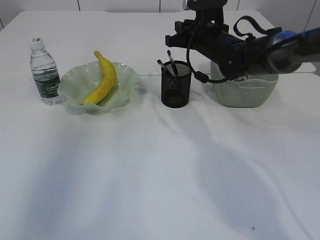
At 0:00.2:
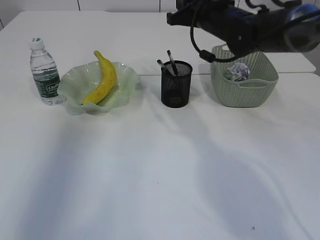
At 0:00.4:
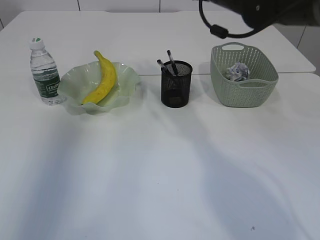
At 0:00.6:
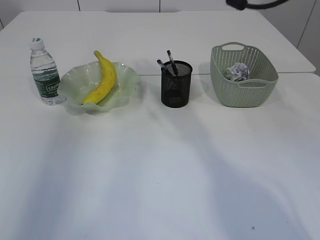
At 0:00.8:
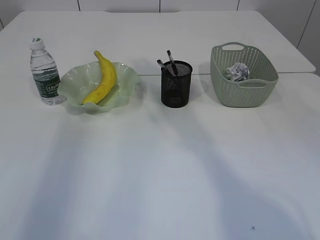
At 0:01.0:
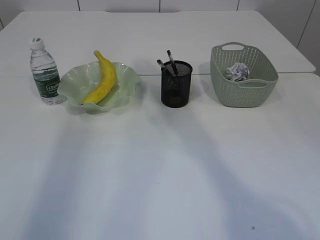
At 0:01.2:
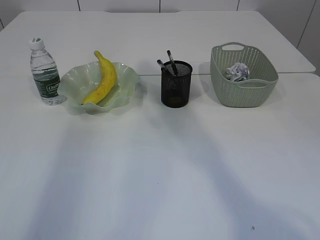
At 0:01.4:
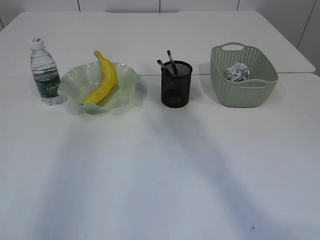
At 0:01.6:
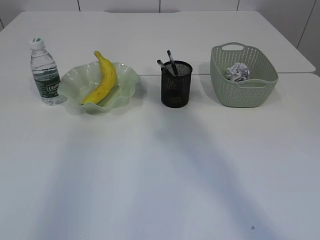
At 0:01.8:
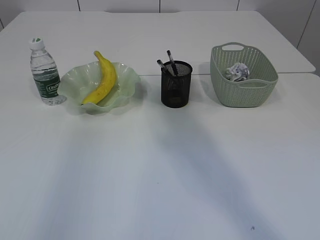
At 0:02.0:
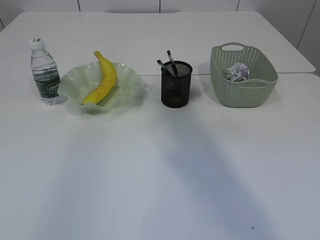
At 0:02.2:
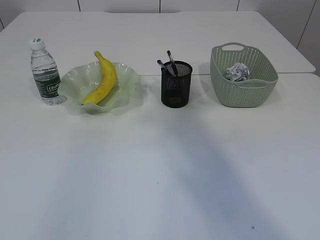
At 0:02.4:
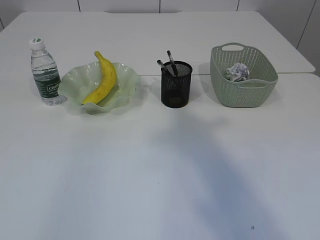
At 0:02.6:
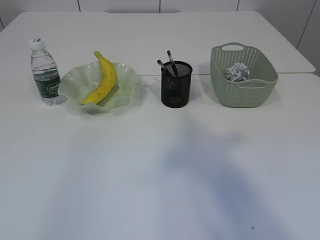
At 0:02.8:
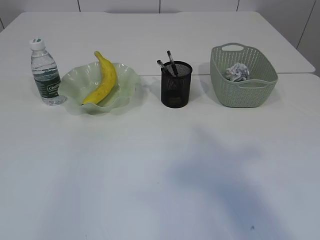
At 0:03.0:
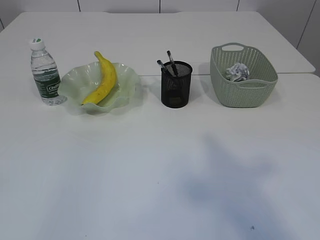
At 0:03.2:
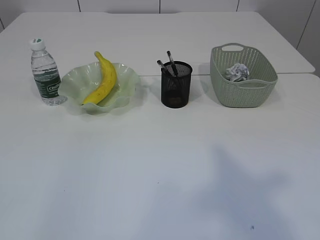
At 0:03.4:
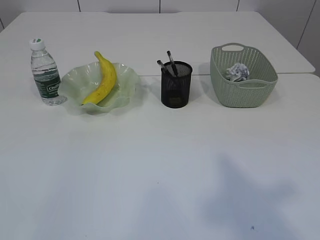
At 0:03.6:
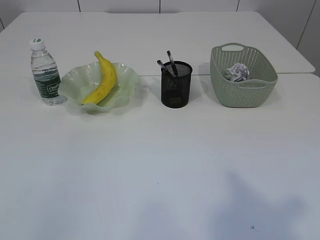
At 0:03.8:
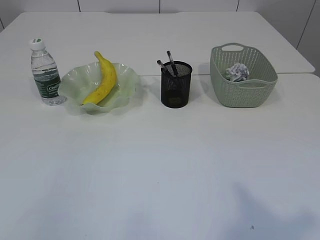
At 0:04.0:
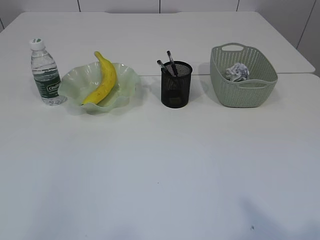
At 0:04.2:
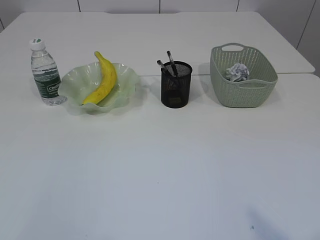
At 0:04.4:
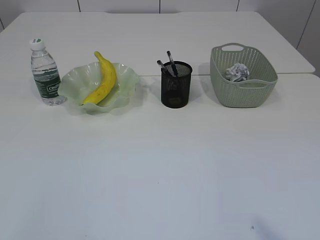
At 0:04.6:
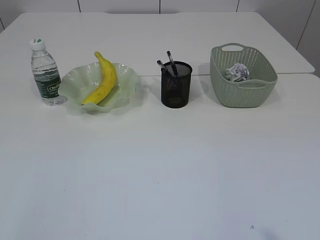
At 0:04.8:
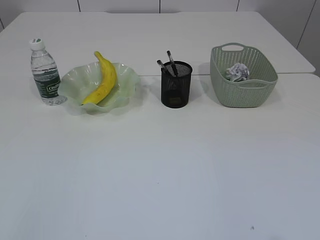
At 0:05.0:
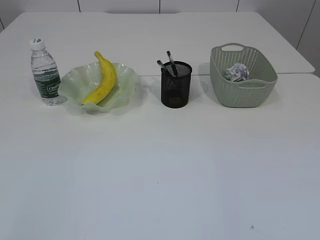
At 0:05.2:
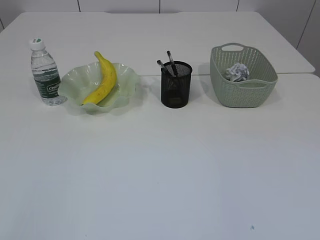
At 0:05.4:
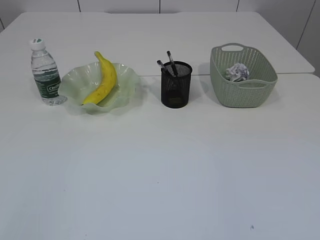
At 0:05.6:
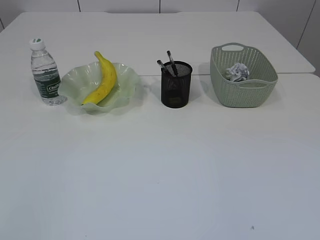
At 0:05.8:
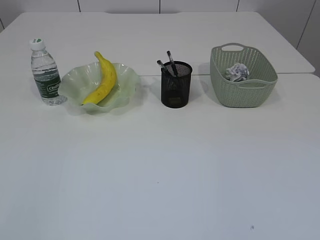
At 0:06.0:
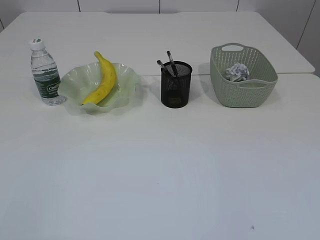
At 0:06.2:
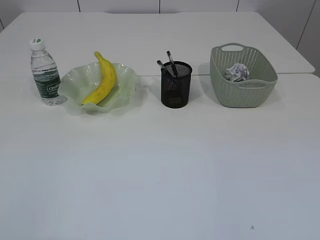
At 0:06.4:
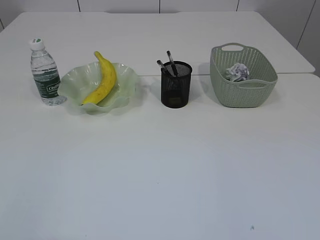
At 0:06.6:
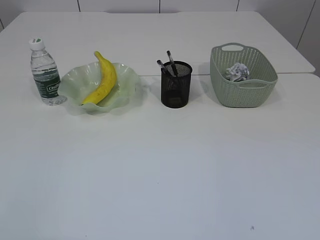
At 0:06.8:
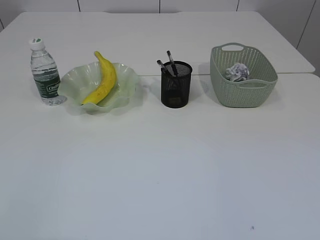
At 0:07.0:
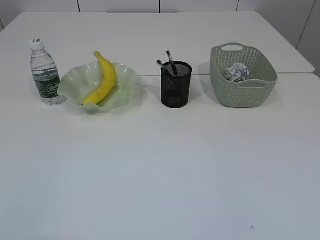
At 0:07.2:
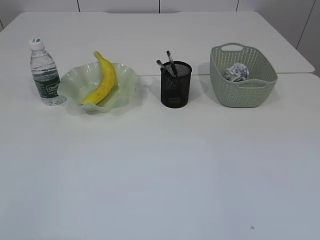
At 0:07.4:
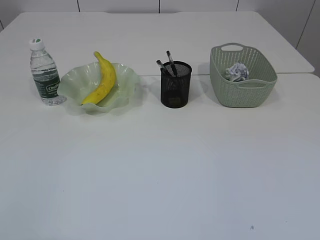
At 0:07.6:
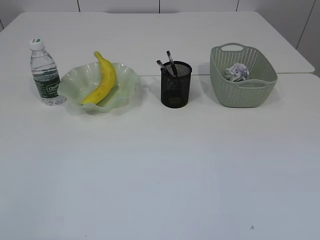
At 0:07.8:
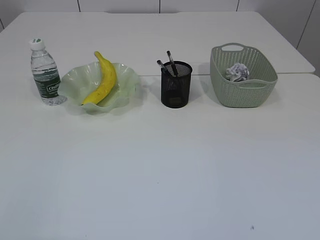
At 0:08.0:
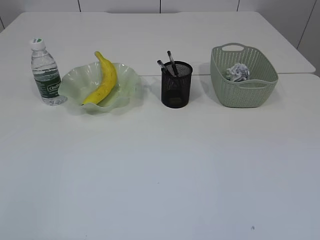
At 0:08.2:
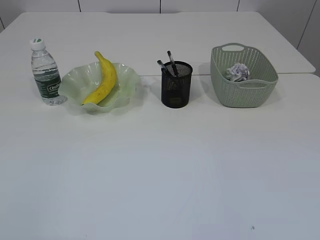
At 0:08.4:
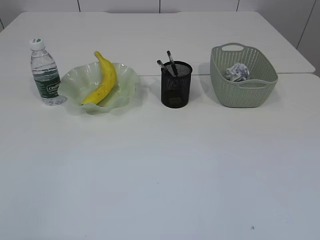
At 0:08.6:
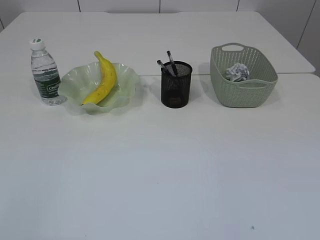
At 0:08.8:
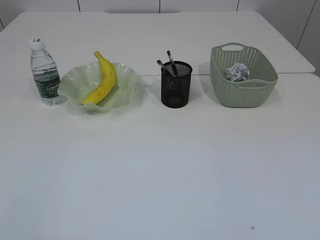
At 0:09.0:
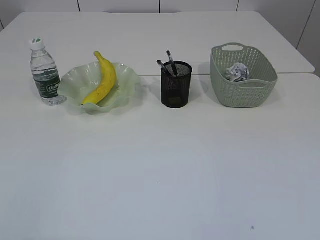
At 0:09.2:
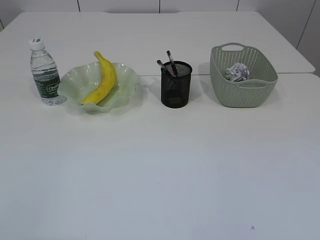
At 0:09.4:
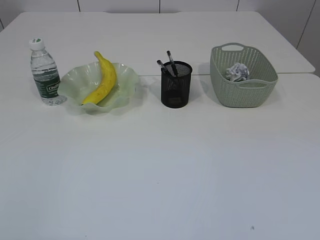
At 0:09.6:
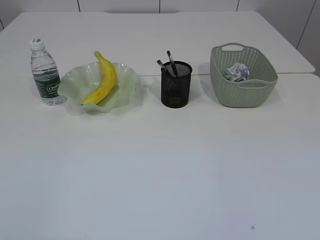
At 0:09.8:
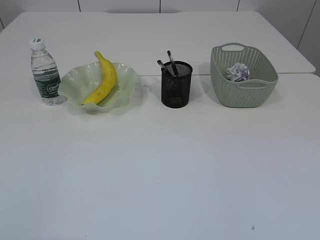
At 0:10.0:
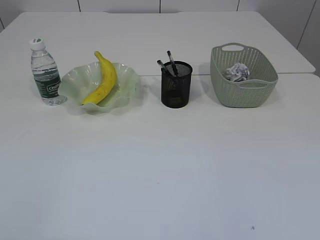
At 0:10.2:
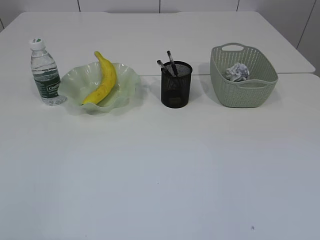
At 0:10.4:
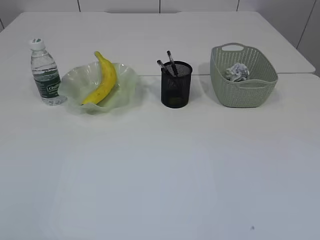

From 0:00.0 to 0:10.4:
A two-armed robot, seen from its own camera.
From 0:00.0 to 0:01.4: The left gripper is displaced backward and upward by some 15 cm. The right gripper moves upward and backward, approximately 30 cm.
From 0:01.4 to 0:03.0: Both grippers travel together backward, some 25 cm.
From 0:03.0 to 0:04.4: The right gripper shifts approximately 15 cm downward and backward. Meanwhile the left gripper travels downward by about 15 cm.

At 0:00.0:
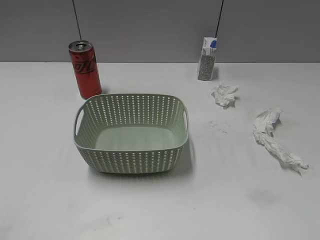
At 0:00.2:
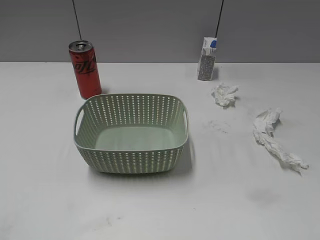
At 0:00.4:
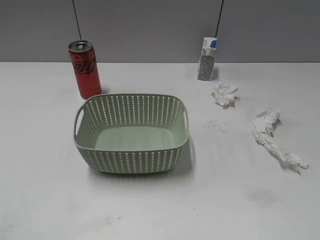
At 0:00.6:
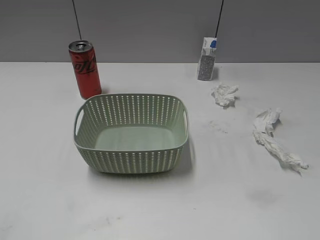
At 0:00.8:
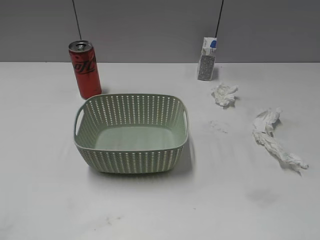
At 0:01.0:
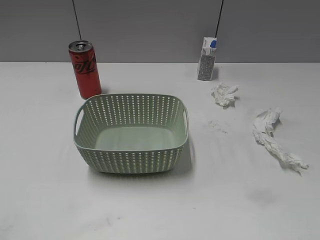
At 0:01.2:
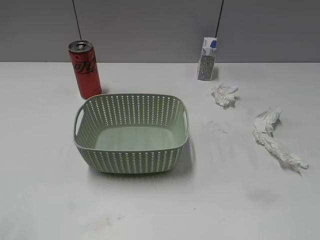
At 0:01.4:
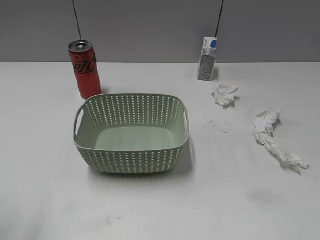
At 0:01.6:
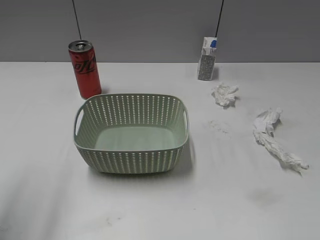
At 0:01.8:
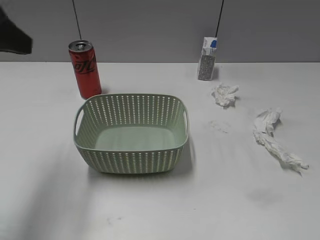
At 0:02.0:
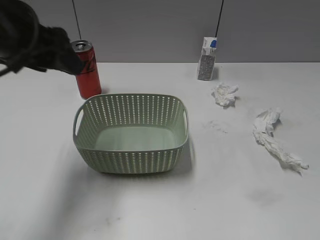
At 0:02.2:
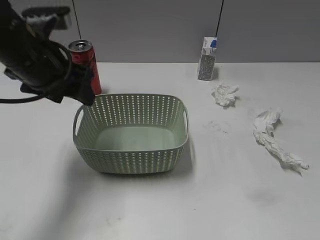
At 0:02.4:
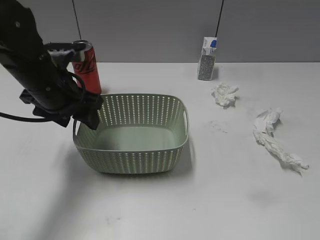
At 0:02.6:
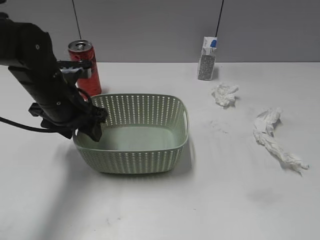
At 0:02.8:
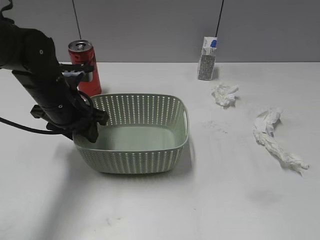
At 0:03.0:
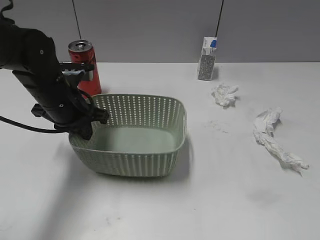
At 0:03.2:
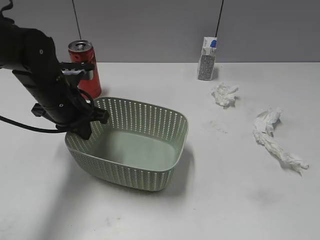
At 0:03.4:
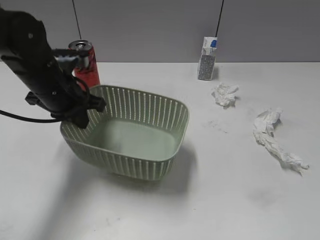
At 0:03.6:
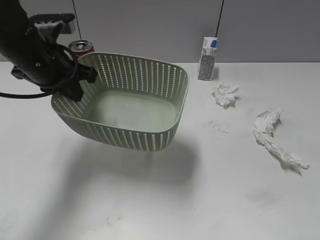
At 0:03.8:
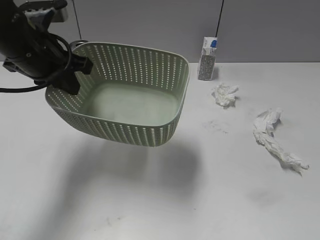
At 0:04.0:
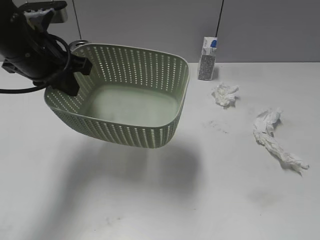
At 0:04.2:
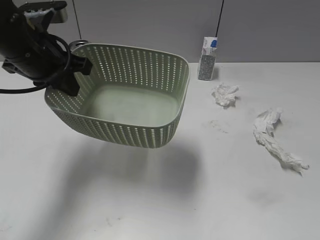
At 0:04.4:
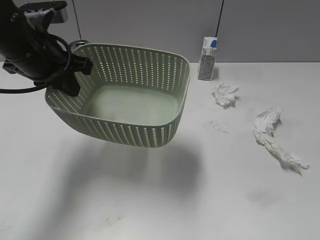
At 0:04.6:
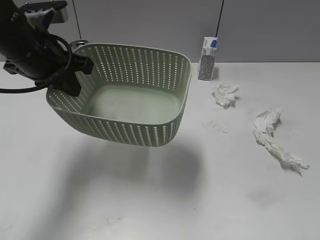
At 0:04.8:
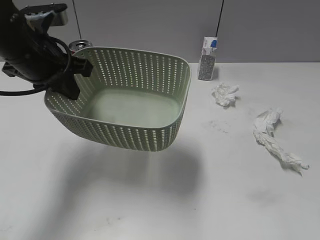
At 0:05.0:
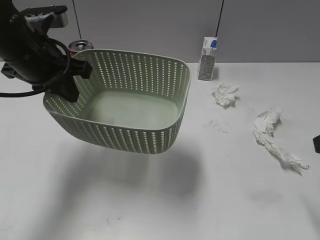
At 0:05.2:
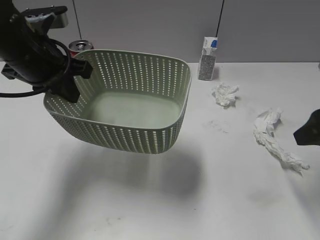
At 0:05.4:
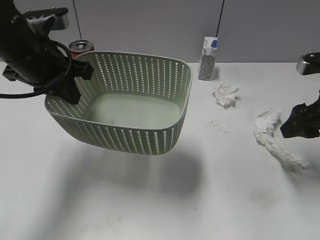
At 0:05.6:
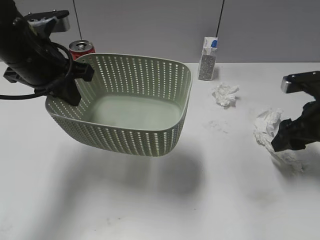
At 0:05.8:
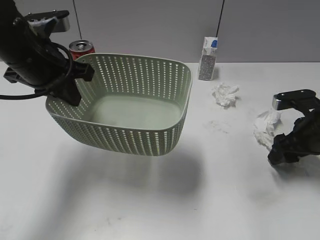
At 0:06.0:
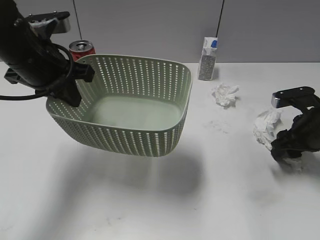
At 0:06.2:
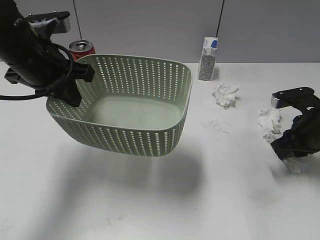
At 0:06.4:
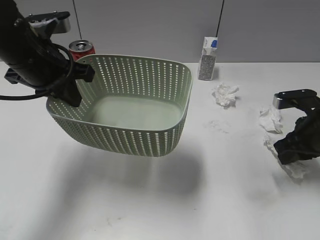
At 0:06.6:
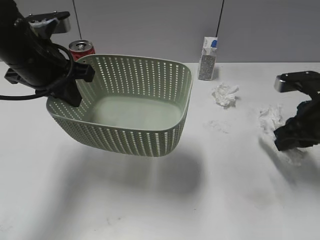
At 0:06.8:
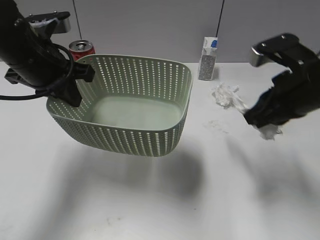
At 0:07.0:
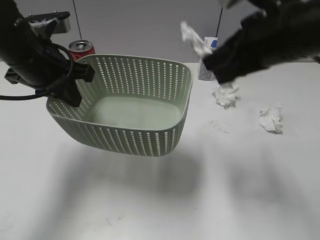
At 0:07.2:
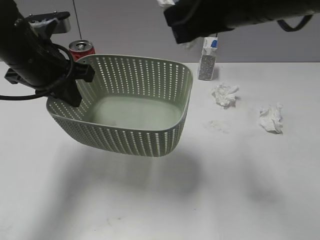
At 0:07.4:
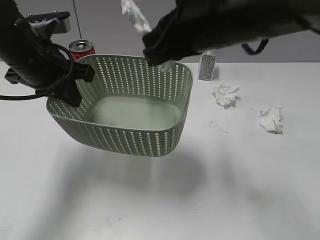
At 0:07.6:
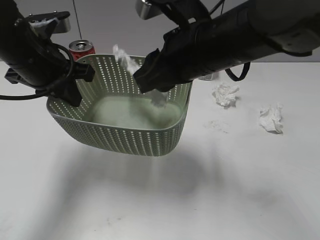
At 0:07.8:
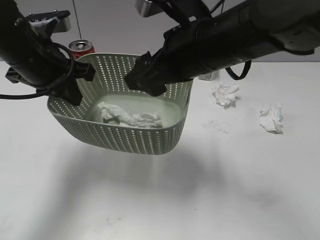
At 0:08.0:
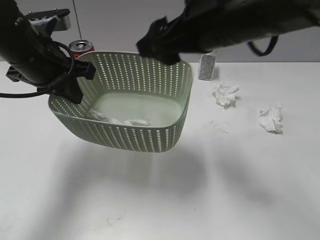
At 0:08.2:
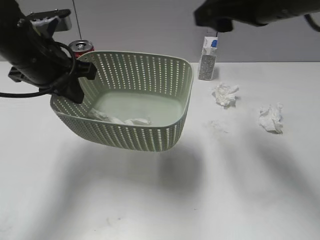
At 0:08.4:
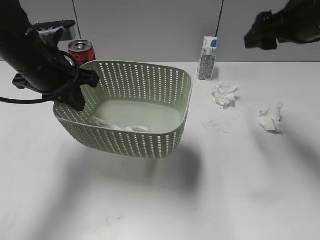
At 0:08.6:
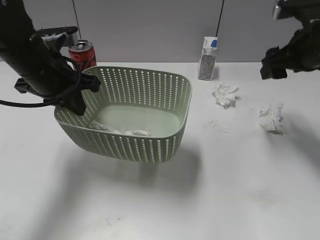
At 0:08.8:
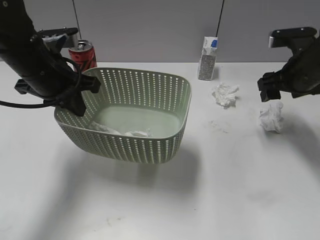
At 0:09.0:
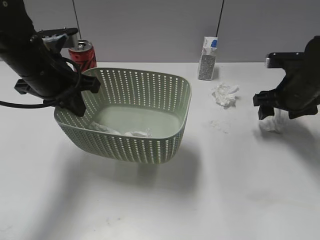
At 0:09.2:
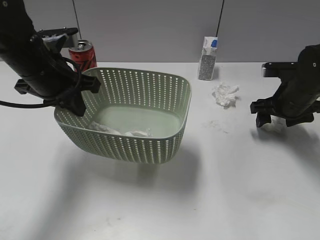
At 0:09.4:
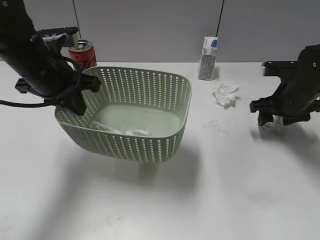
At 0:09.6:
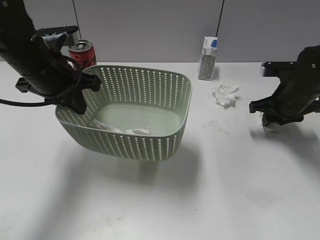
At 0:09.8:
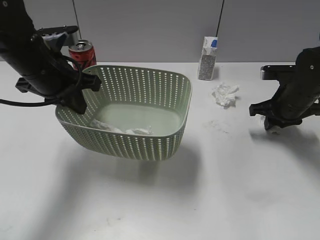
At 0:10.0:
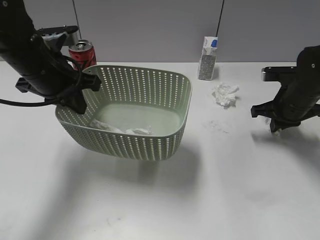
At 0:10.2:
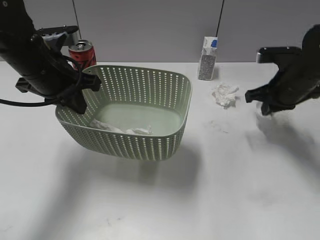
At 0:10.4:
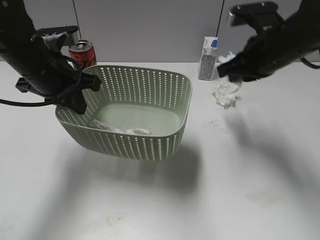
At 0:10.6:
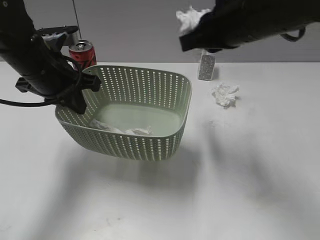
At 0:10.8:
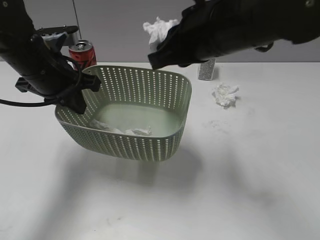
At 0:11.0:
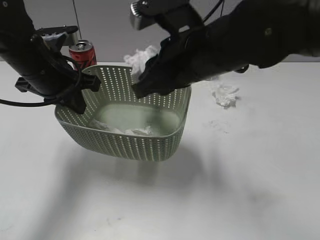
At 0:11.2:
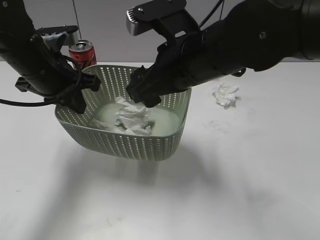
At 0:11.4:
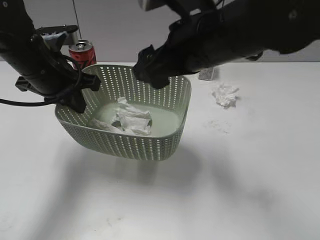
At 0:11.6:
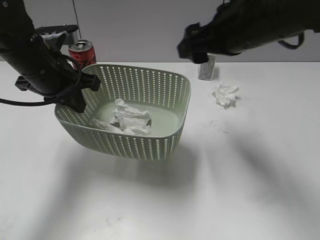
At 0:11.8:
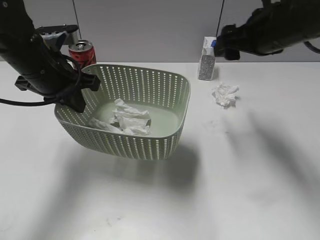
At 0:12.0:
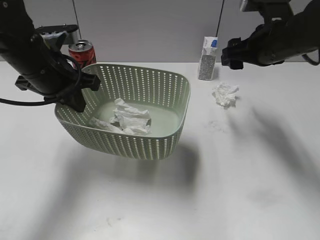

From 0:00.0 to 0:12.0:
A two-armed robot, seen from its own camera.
Step, from 0:01.6 to 0:03.0: Grasp the basket with left gripper.
Step, from 0:03.2 to 0:03.8: Lift the basket with left gripper.
Step, from 0:04.0 to 0:06.4: Grasp the waste paper with right gripper.
Step, from 0:06.6 to 0:08.0: Place the waste paper in the basket with right gripper.
Step, from 0:08.2 to 0:10.0: Grasp the waste paper with right gripper.
Step, from 0:10.2 to 0:11.4: Place the waste paper in the basket with right gripper.
From 0:01.6 to 0:03.0: The left gripper heads downward, forward and to the right, covering some 25 cm, and closes its fingers.
From 0:03.0 to 0:04.4: The left gripper goes some 10 cm upward.
From 0:04.4 to 0:06.0: The right gripper goes approximately 35 cm forward and downward.
From 0:06.0 to 0:07.6: The right gripper heads to the left and upward, covering some 30 cm, and closes its fingers.
From 0:07.6 to 0:09.0: The right gripper shifts some 25 cm to the right, downward and forward, and opens its fingers.
From 0:09.0 to 0:10.4: The right gripper travels to the left and upward by some 10 cm, and closes.
From 0:10.4 to 0:12.0: The right gripper reaches about 15 cm to the left, then returns, and opens.
